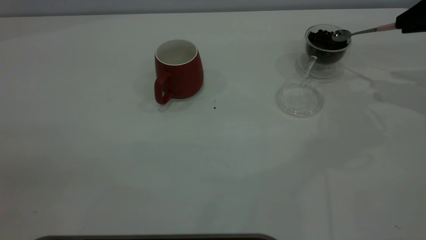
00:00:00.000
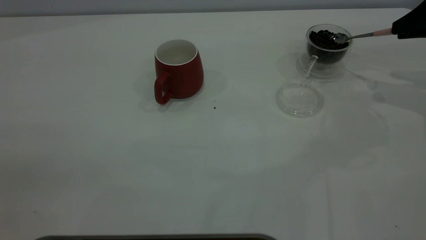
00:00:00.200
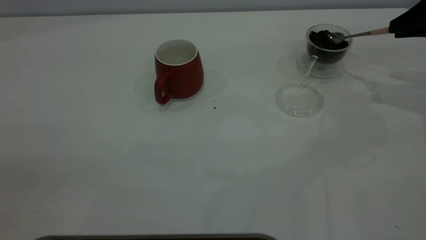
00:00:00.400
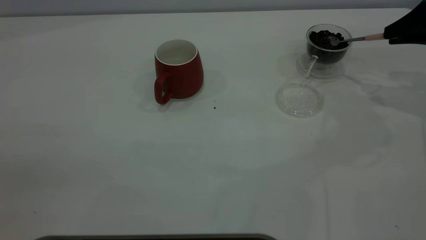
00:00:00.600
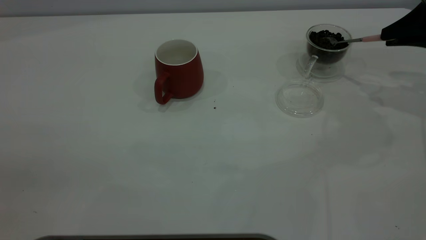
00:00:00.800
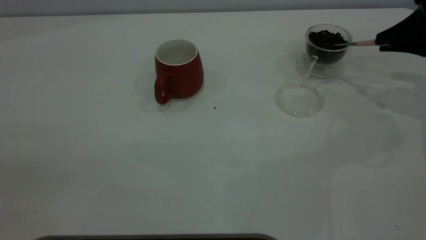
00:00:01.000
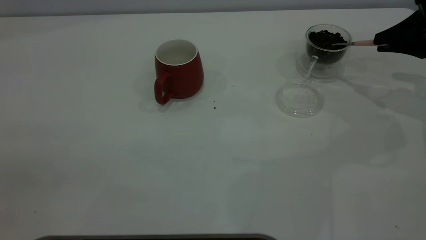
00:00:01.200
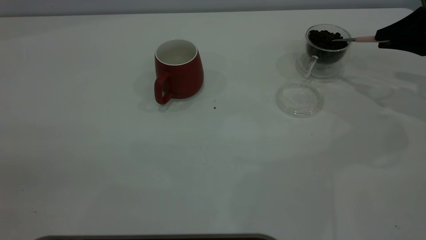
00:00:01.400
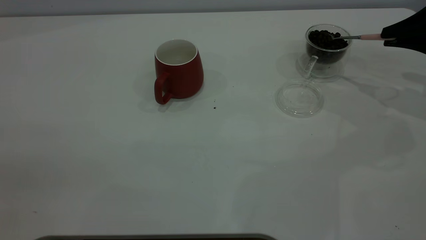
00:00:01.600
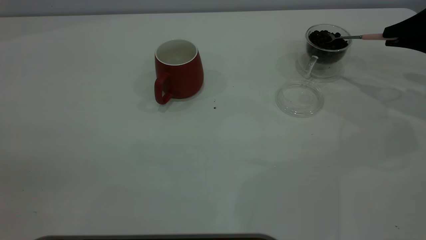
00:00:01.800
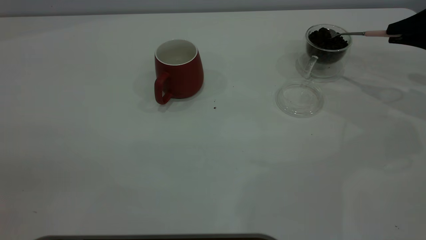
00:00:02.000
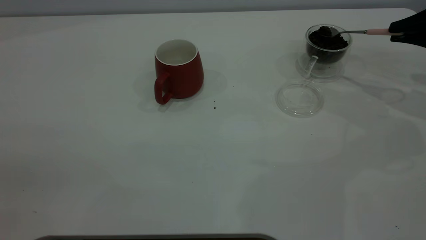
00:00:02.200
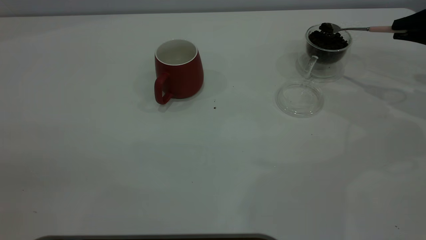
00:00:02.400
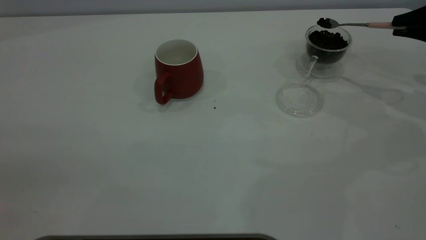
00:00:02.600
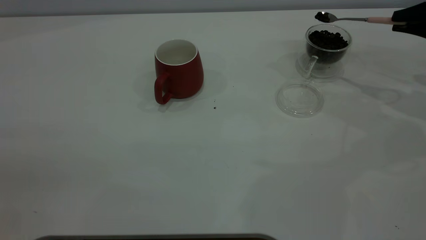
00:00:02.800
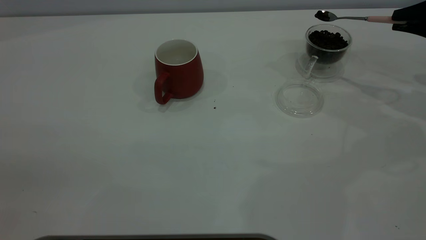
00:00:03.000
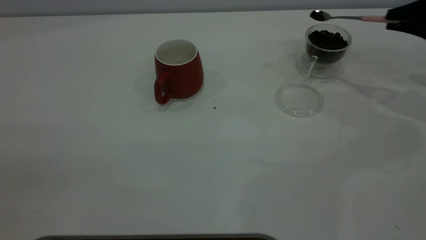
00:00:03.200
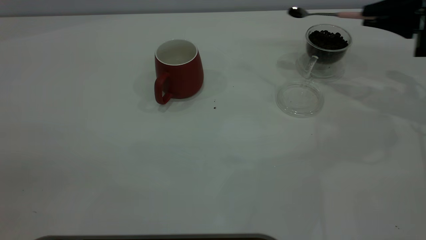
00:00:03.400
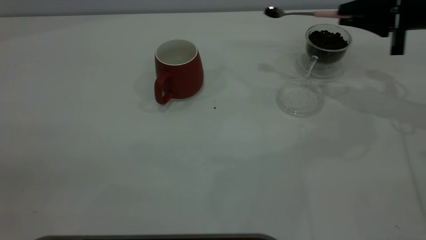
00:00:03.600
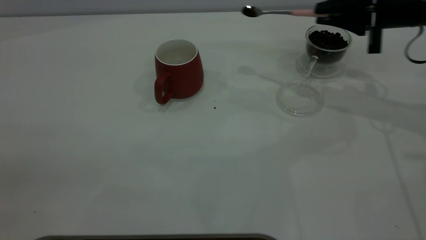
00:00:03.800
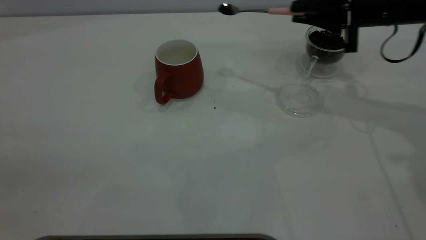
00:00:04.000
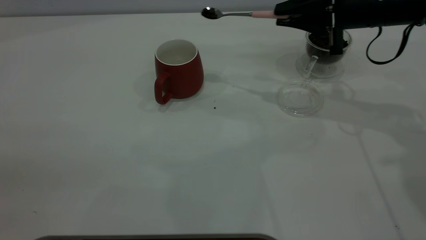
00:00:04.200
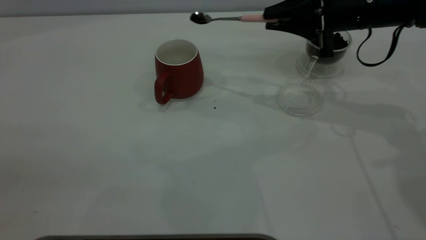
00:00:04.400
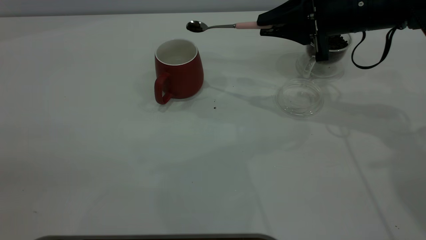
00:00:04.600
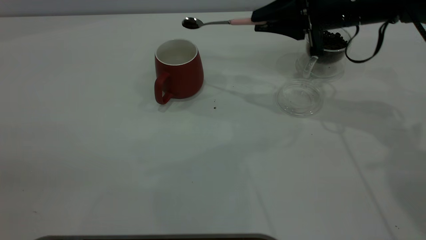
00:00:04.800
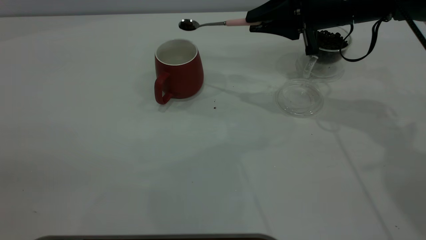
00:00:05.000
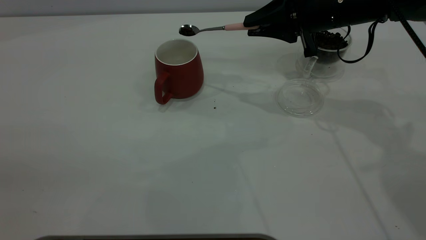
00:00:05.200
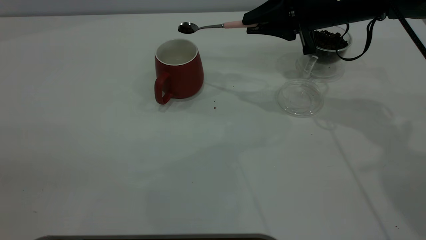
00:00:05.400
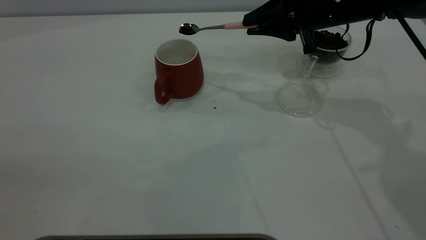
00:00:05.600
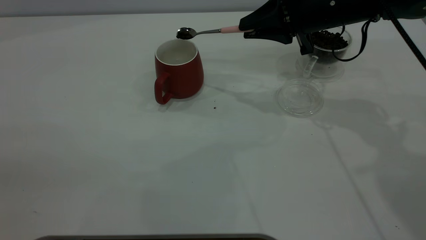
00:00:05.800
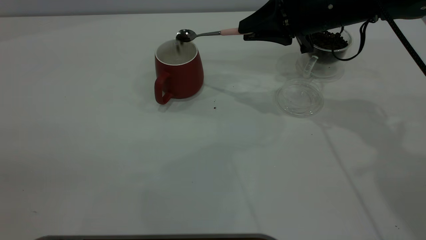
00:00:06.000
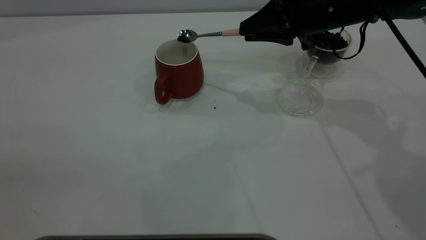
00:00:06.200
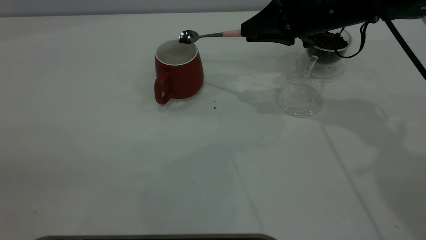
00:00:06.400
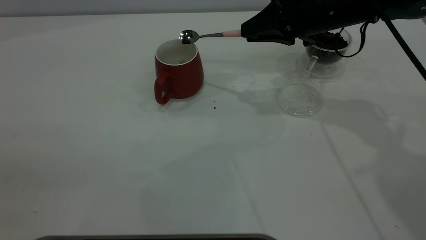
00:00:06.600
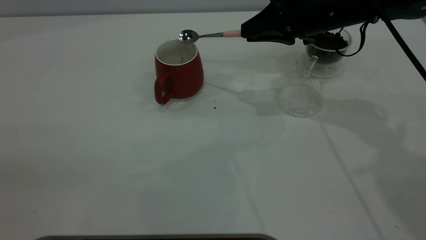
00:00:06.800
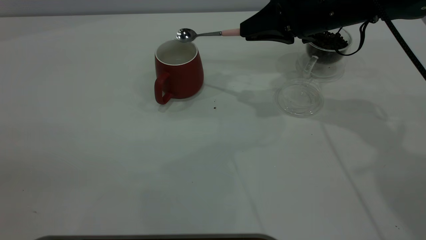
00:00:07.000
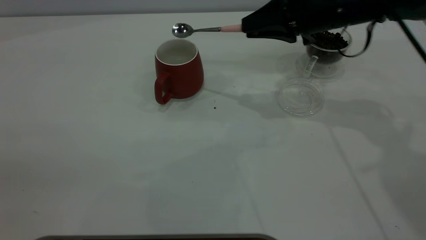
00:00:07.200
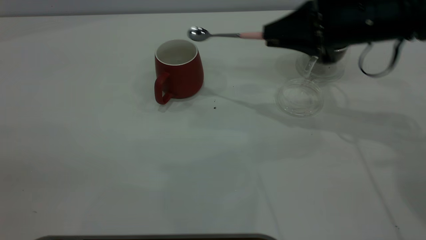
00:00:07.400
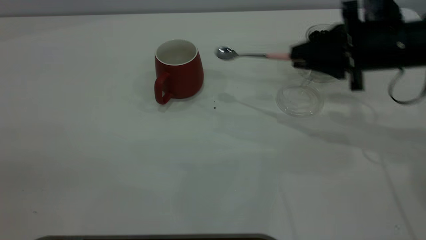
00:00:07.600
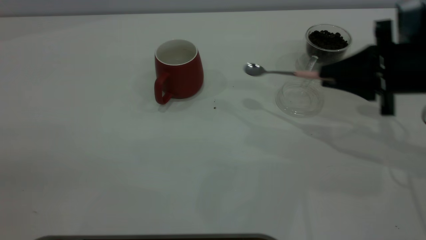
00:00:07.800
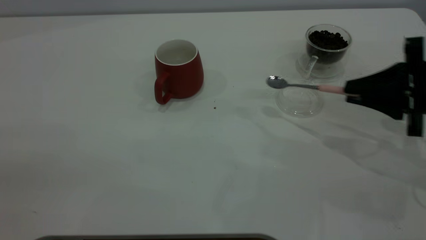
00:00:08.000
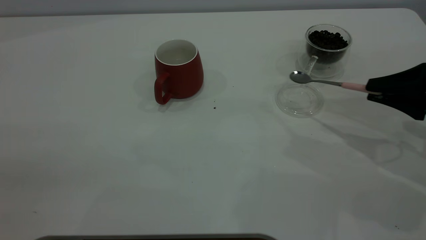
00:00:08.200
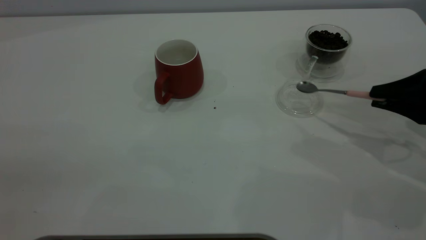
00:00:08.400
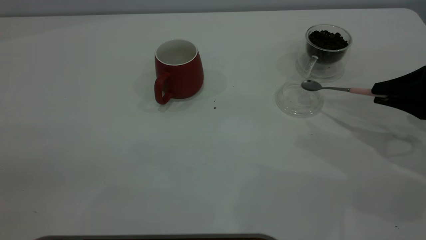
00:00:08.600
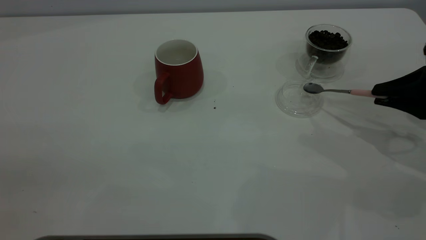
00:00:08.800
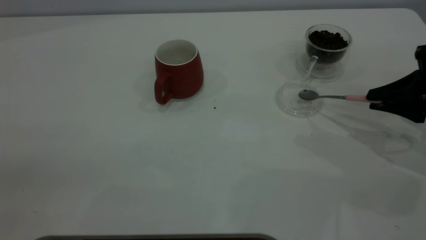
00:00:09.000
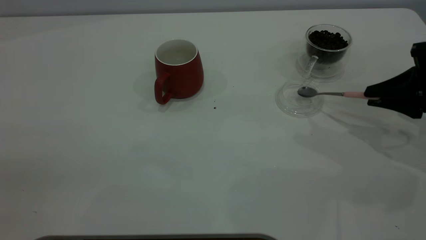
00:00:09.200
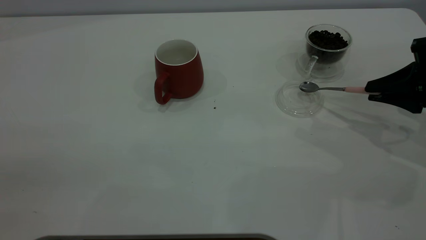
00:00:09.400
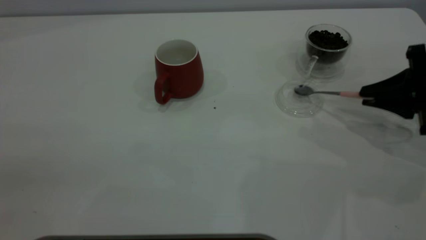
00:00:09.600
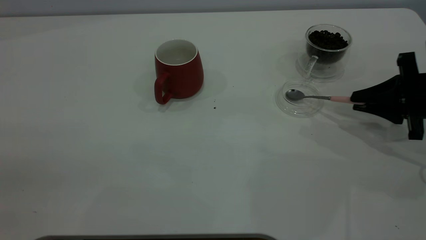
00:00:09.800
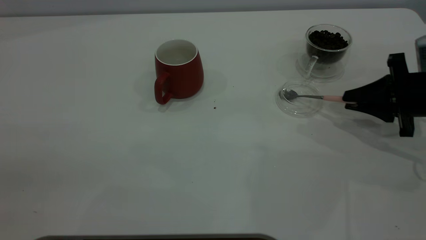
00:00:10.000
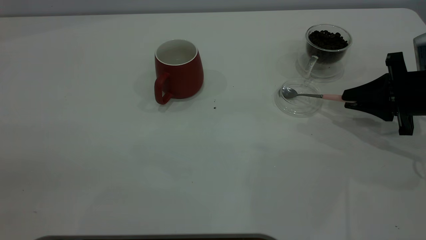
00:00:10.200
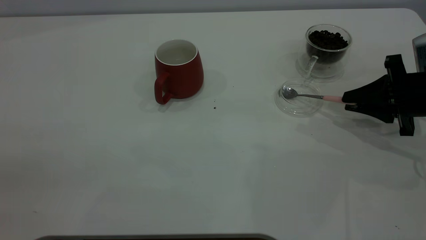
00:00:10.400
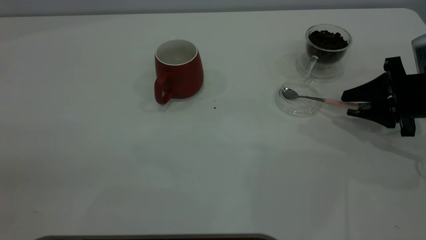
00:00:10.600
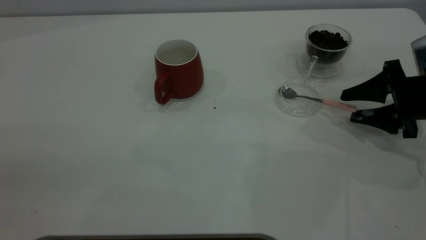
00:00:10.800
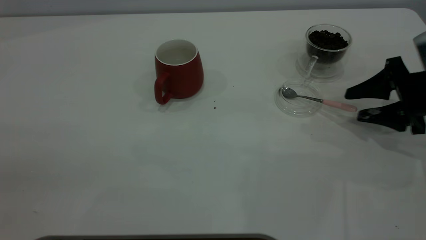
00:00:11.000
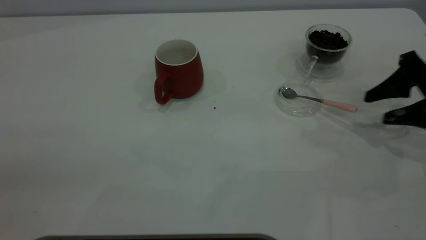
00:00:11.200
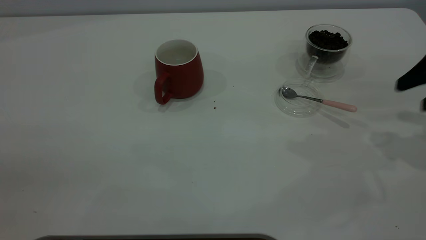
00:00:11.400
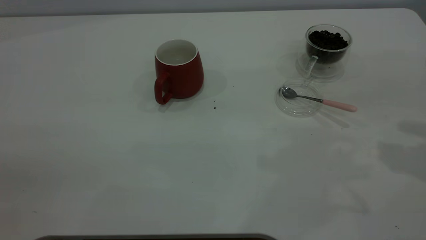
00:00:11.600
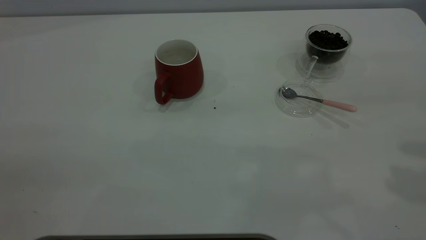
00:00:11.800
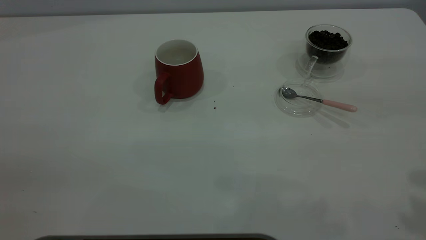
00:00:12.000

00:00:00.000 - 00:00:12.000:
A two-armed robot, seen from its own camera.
Task of the whole recording: the left gripper place the red cup in the center of the table, the right gripper take the pink spoon from the cup lid and scoop out the coffee beans from the coffee cup and put them into the red cup, the right gripper put the spoon back into the cup lid.
Step, 00:00:00.000 - 00:00:07.200: Scoop a spoonful of beans into the cup.
Step, 00:00:07.400 - 00:00:11.000: Place the spoon back in its original place.
00:00:01.600 - 00:00:03.000: The grippers stay close to where they were, moving slightly.
00:00:03.000 - 00:00:04.400: The right gripper heads to the left, covering approximately 20 cm.
00:00:04.400 - 00:00:06.000: There are only small adjustments of the grippers.
00:00:06.000 - 00:00:07.600: The right gripper goes about 10 cm to the right and backward.
00:00:07.600 - 00:00:09.000: The right gripper heads to the right and backward, covering approximately 10 cm.
00:00:09.000 - 00:00:10.400: The right gripper changes place by some 5 cm.
00:00:10.400 - 00:00:12.000: The right gripper is displaced upward and backward by about 30 cm, and opens its fingers.
